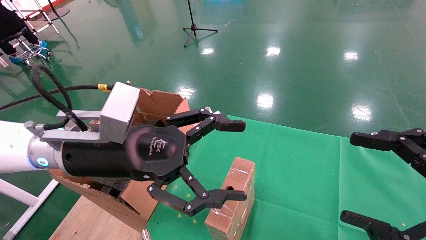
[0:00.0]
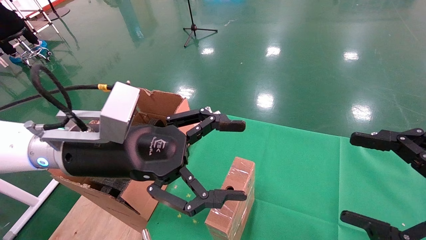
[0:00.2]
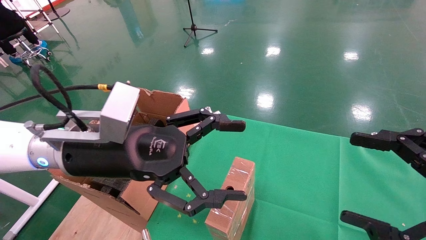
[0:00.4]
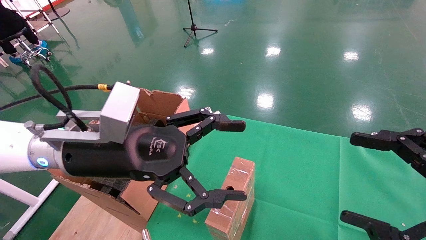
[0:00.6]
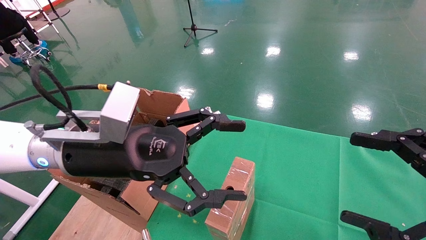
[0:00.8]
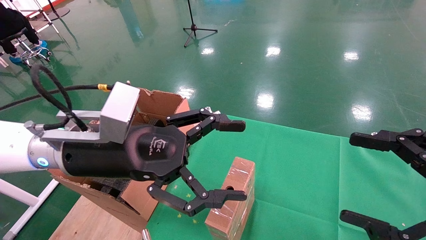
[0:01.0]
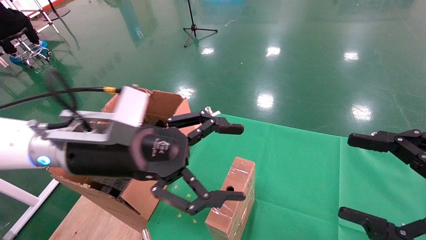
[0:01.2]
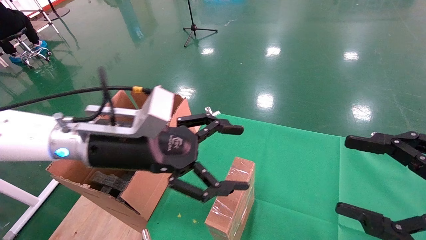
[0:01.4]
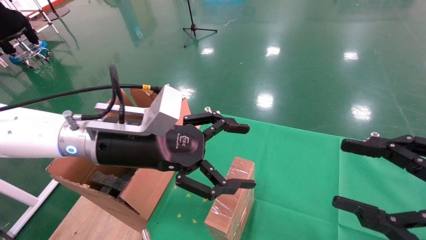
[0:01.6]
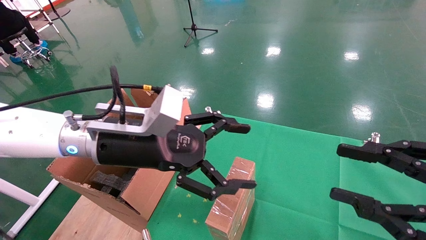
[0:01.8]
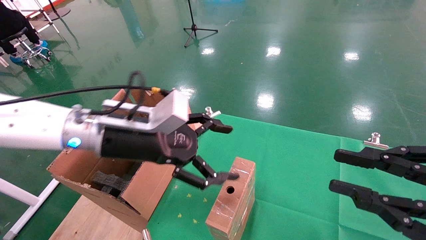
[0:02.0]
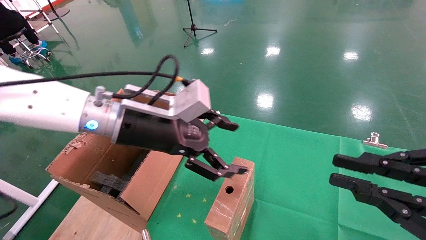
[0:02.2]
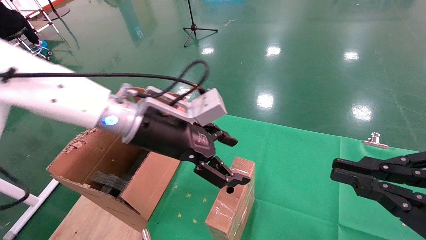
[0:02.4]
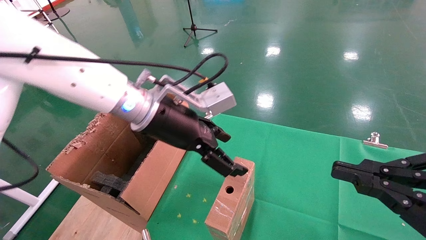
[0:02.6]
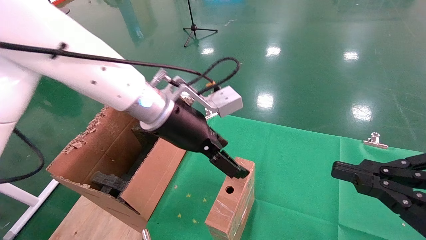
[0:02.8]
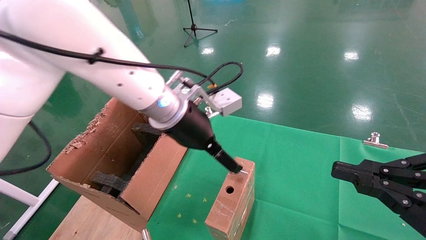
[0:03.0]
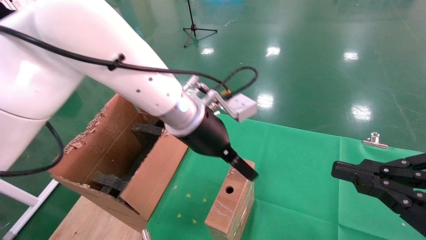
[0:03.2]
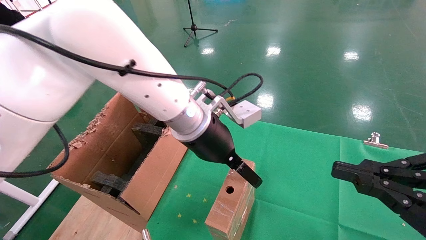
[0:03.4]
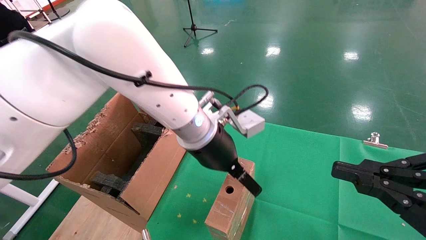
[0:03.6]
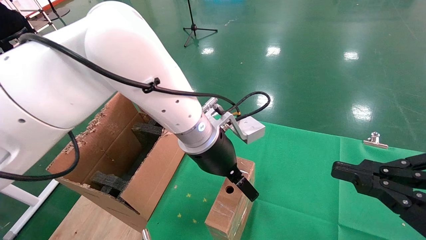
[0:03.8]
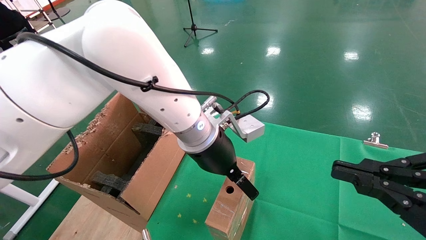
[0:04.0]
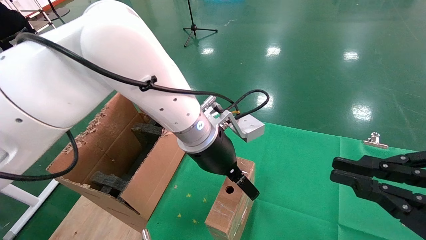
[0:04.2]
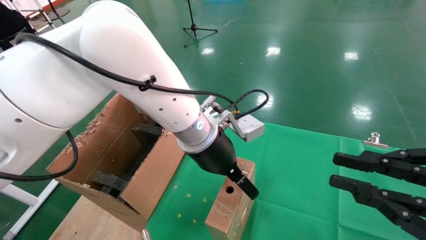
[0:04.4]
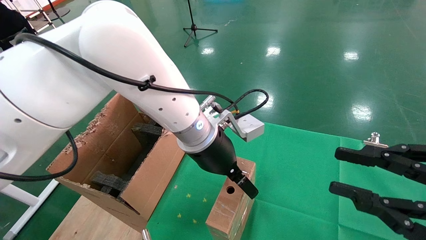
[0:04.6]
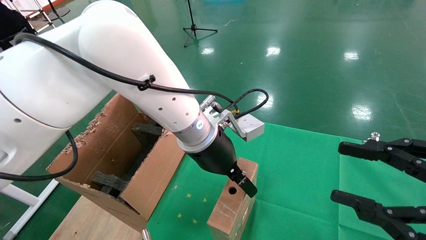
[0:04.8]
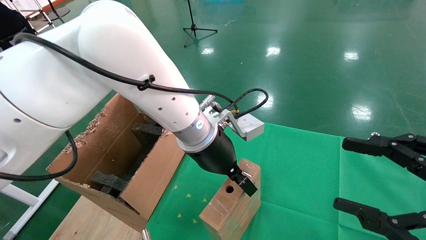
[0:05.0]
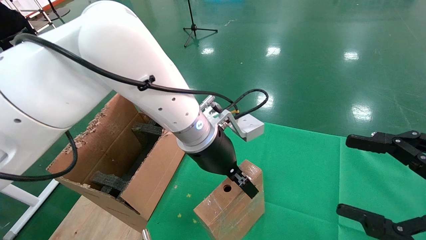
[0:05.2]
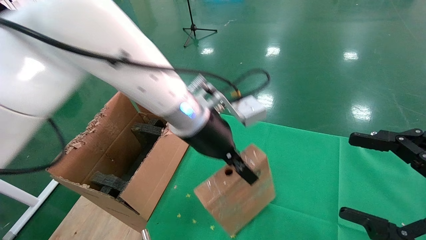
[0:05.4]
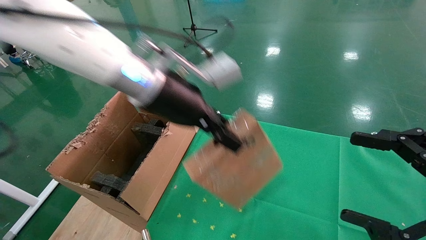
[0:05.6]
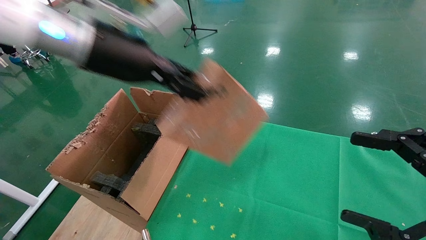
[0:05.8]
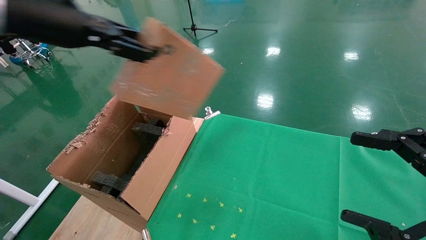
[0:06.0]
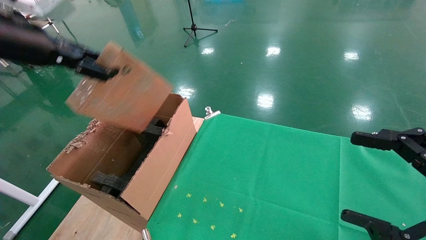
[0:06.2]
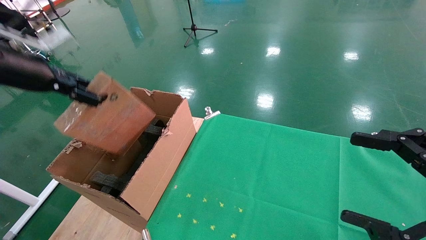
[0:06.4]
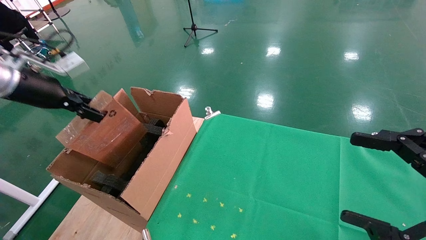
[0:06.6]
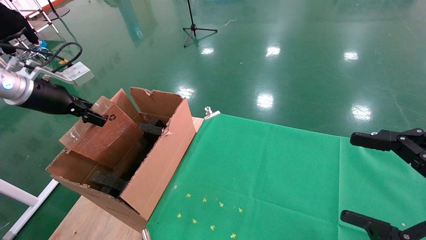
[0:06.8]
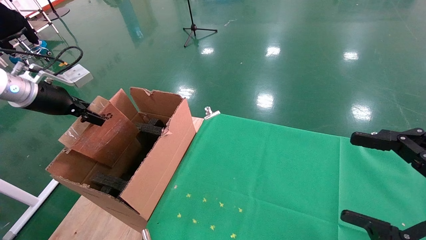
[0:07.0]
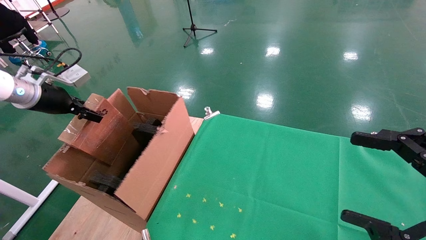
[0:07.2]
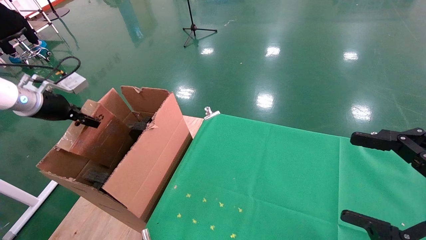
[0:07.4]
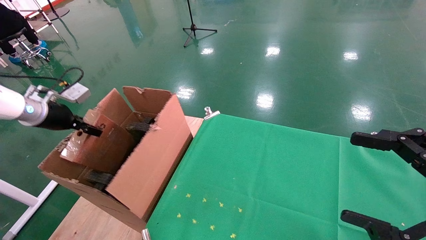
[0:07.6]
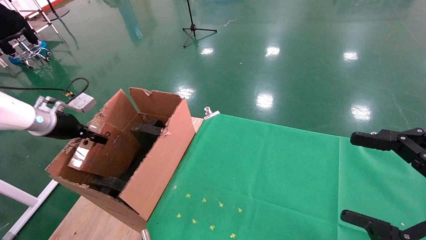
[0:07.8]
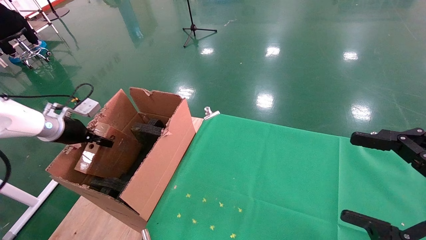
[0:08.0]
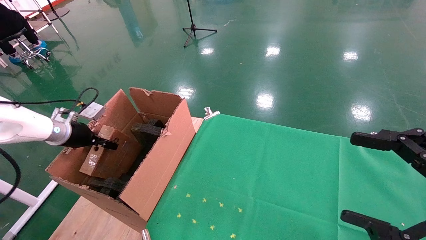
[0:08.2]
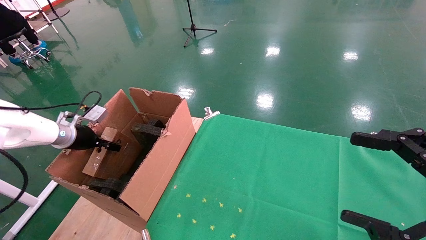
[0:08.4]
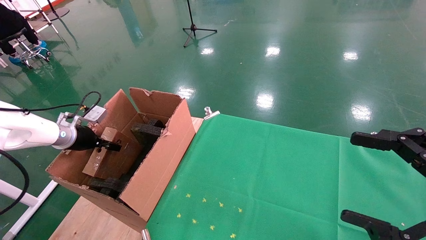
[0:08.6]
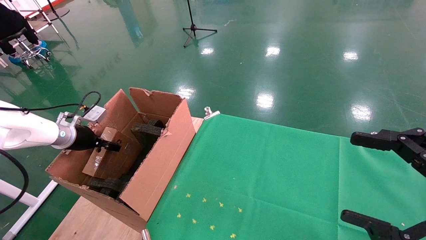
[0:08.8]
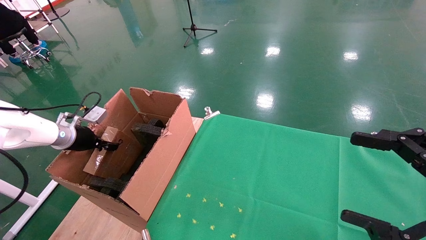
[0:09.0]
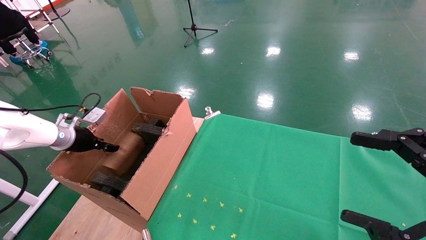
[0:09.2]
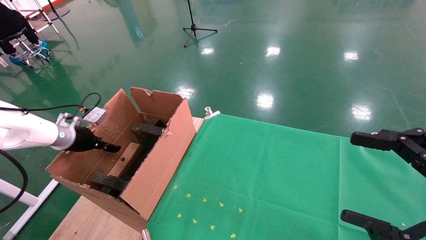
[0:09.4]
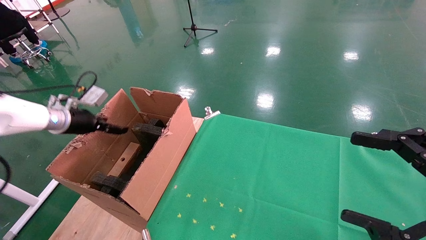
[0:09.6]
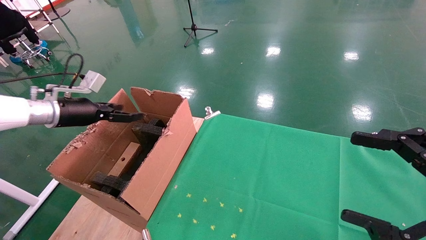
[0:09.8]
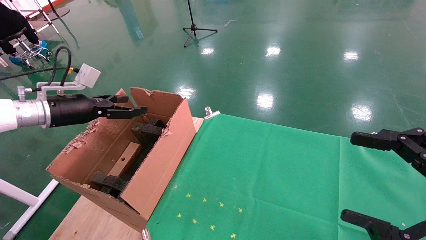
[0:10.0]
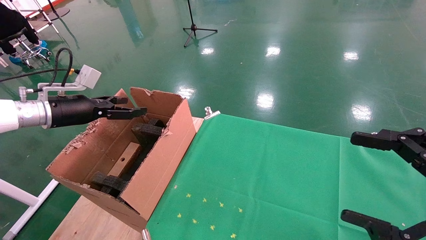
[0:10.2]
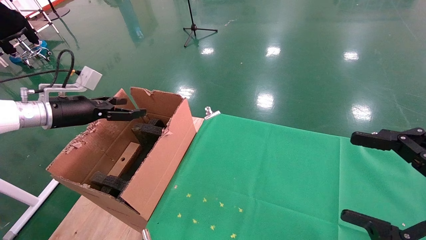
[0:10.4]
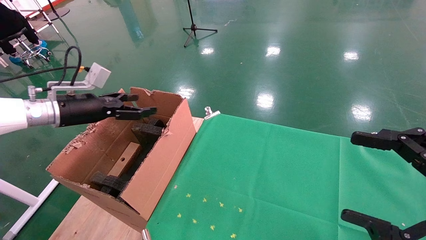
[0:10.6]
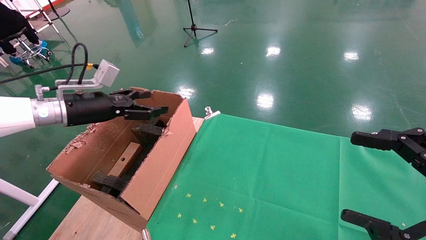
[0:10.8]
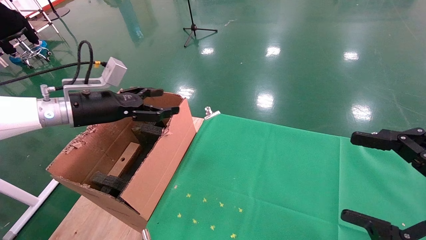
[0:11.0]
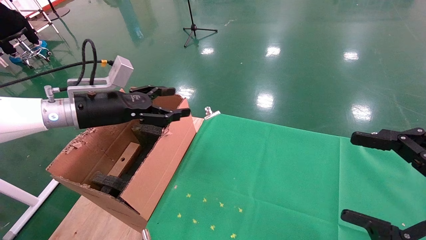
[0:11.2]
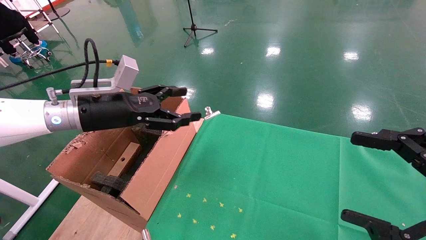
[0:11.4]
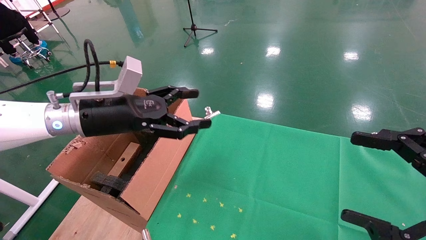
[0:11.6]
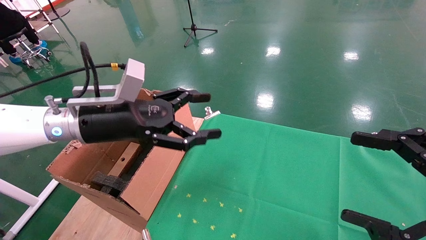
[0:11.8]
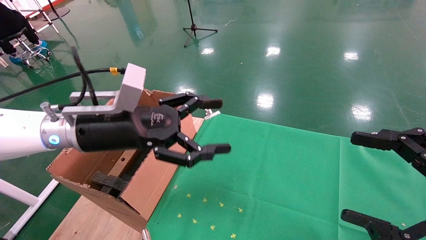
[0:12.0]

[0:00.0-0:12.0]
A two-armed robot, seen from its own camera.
Task of the whole recording: using a robotic arm to pick up a cardboard box and palace it the carton.
Step, 0:01.4 to 0:05.2: Pick up the mouse and the power cord paper box.
Step, 0:05.4 to 0:09.6: Place the mouse and the power cord paper box into the container.
0:00.0 to 0:01.6: The grippers move only a little.
0:01.6 to 0:03.0: The left gripper heads to the right and forward, covering approximately 10 cm, while the right gripper closes up.
0:03.0 to 0:04.4: The left gripper moves about 5 cm.
0:04.4 to 0:06.0: The left gripper is displaced to the left and upward by some 30 cm, and closes its fingers, while the right gripper opens up.
0:06.0 to 0:07.6: The left gripper goes some 30 cm to the left, downward and forward.
0:07.6 to 0:09.0: The left gripper shifts roughly 10 cm downward.
0:09.0 to 0:10.4: The left gripper shifts about 10 cm upward and to the right, and opens up.
0:10.4 to 0:12.0: The left gripper goes some 20 cm to the right and backward.

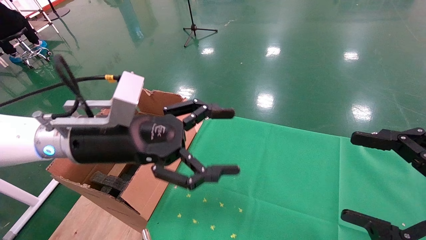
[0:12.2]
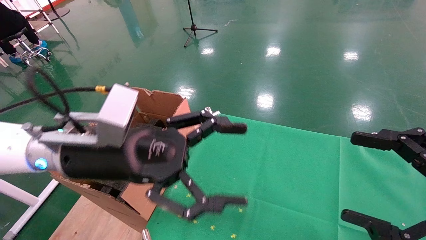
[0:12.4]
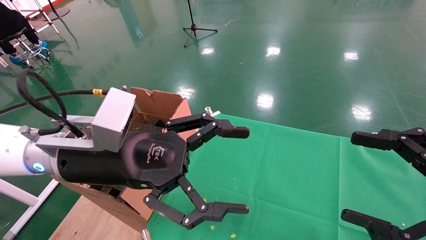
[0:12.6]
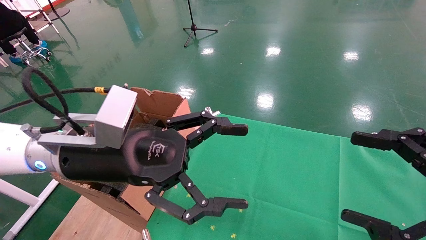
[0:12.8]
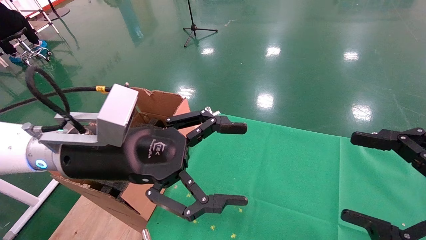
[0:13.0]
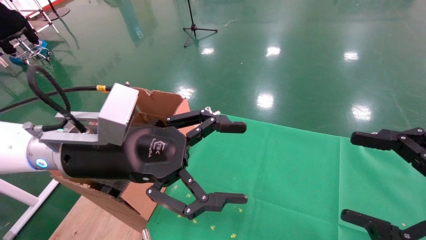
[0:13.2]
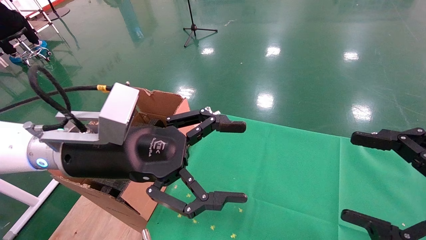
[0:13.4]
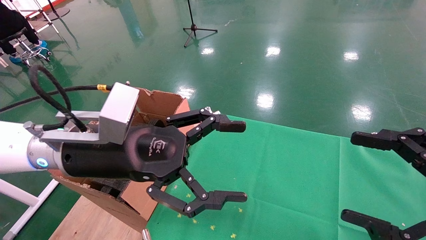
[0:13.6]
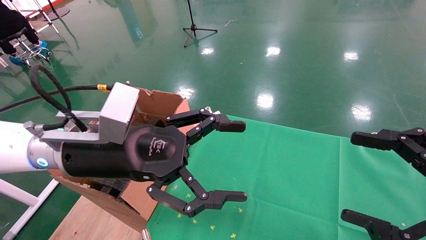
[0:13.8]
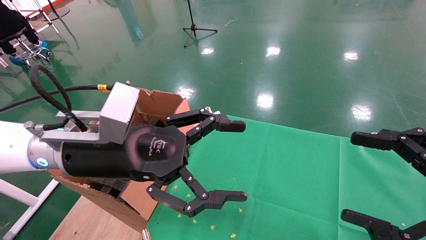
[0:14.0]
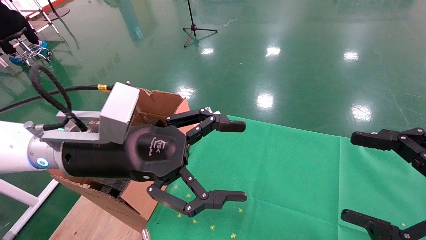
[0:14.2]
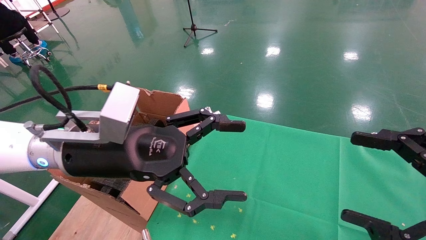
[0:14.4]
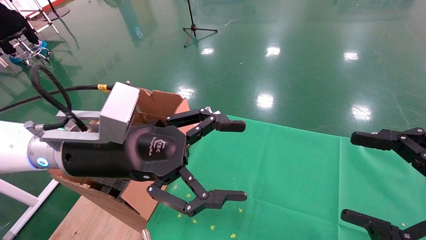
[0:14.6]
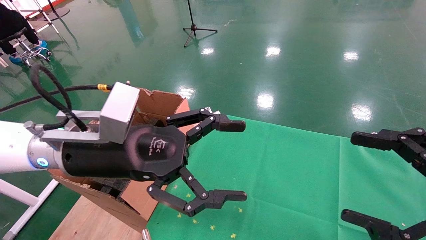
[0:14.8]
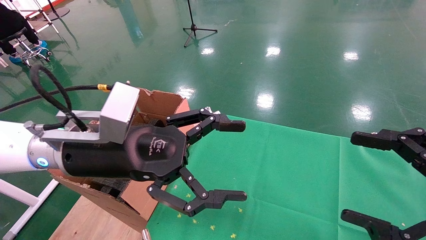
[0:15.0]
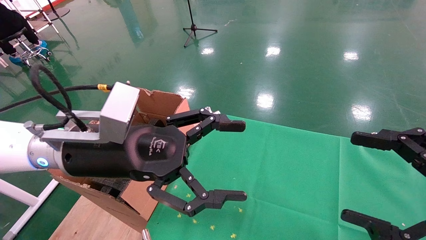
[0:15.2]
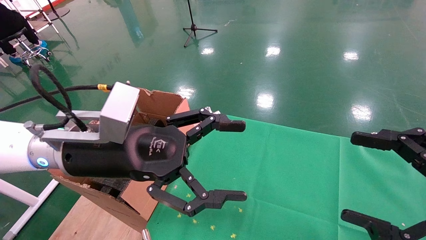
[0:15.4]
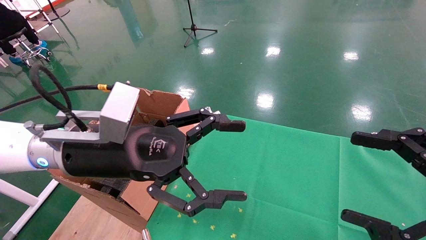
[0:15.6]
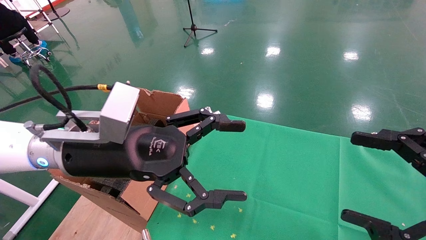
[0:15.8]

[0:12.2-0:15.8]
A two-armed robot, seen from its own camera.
Task of the whole recording: using a robotic arm to pick up a cardboard box and palace it the carton.
0:12.2 to 0:14.0: The grippers move only a little.
0:14.0 to 0:15.8: Both grippers stay about where they are.
